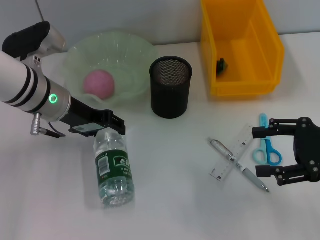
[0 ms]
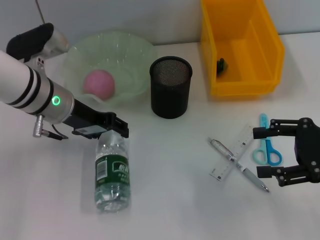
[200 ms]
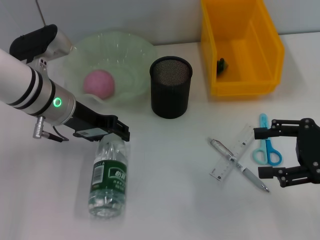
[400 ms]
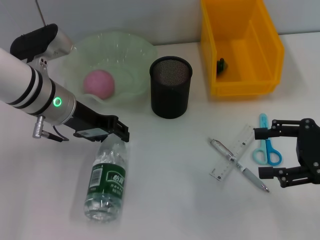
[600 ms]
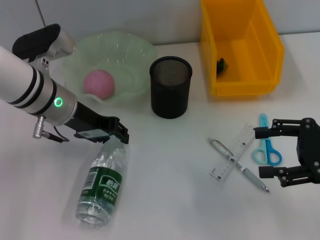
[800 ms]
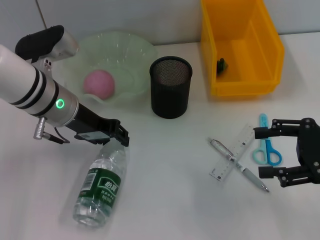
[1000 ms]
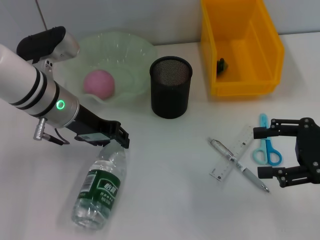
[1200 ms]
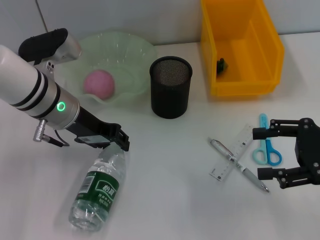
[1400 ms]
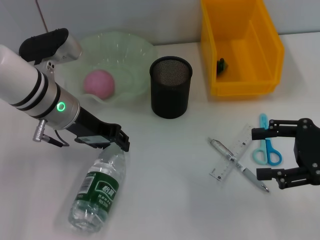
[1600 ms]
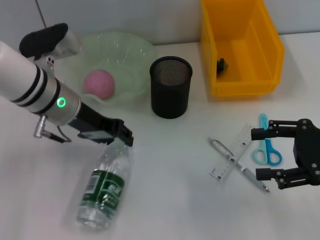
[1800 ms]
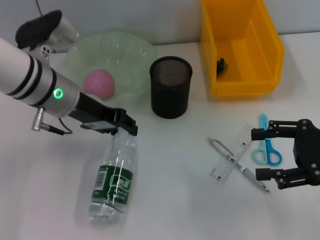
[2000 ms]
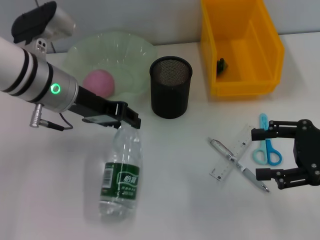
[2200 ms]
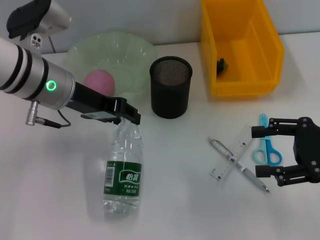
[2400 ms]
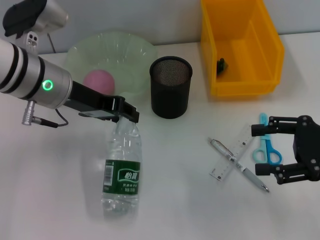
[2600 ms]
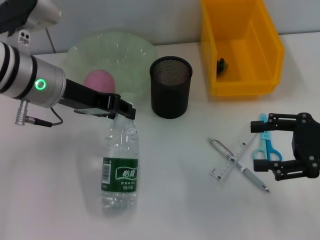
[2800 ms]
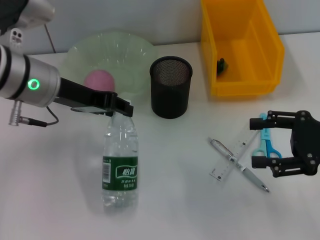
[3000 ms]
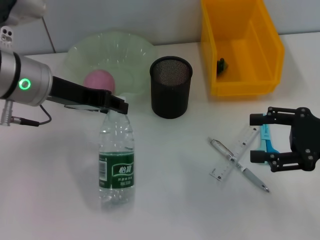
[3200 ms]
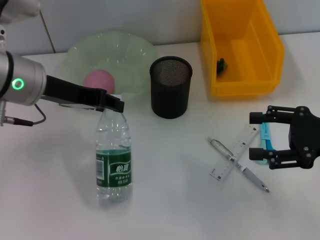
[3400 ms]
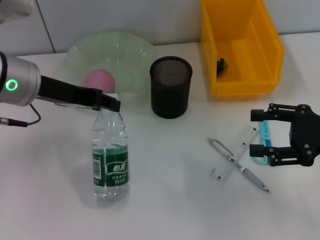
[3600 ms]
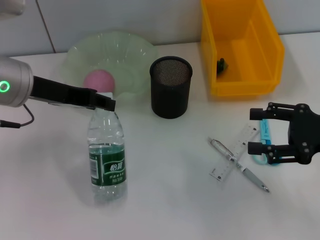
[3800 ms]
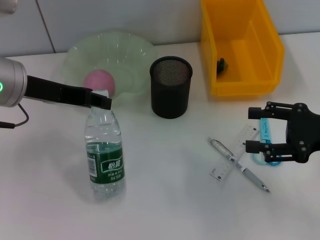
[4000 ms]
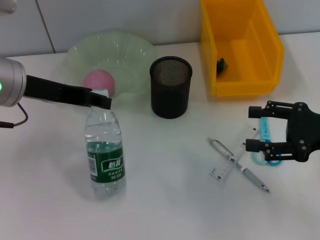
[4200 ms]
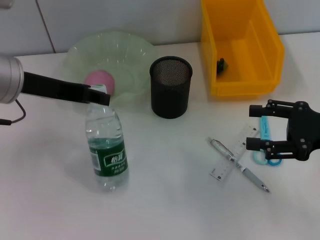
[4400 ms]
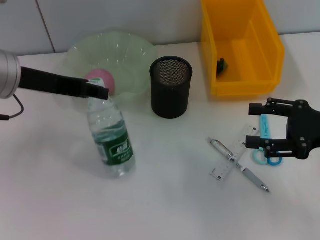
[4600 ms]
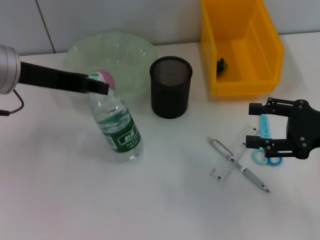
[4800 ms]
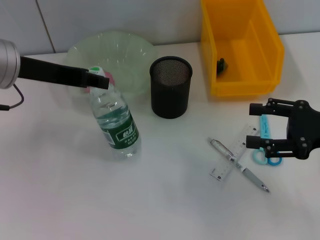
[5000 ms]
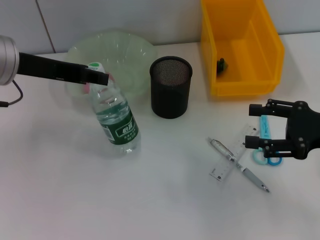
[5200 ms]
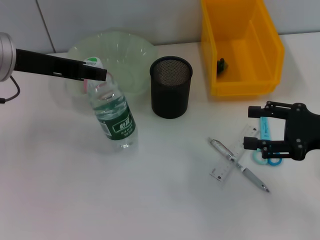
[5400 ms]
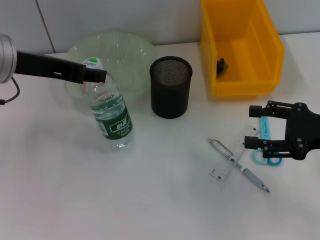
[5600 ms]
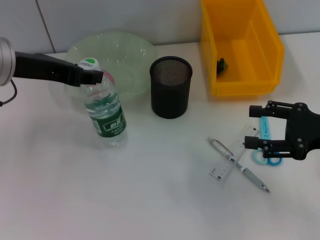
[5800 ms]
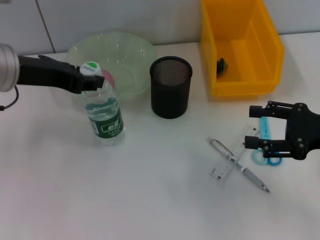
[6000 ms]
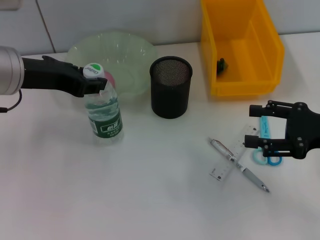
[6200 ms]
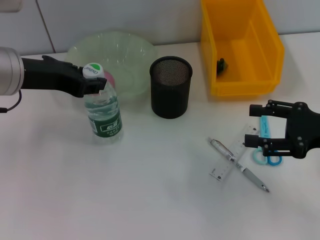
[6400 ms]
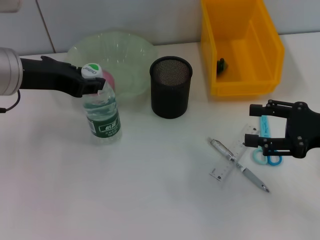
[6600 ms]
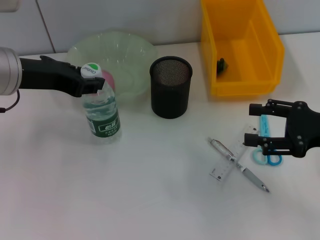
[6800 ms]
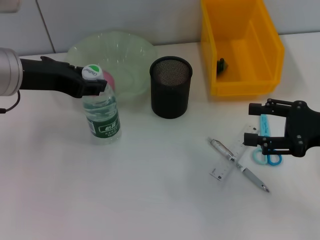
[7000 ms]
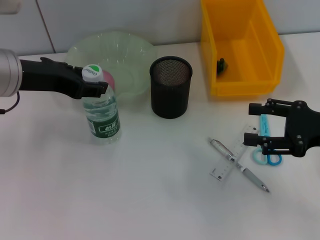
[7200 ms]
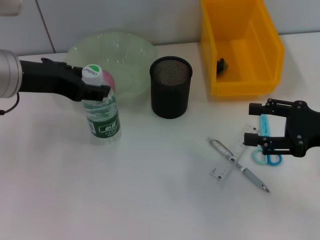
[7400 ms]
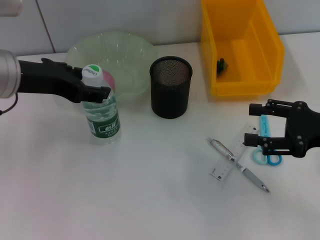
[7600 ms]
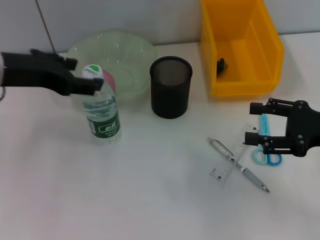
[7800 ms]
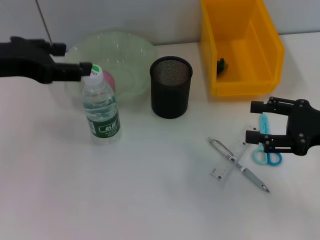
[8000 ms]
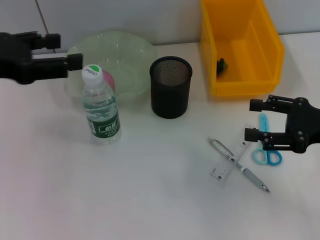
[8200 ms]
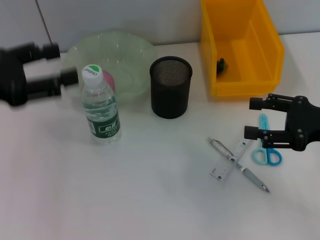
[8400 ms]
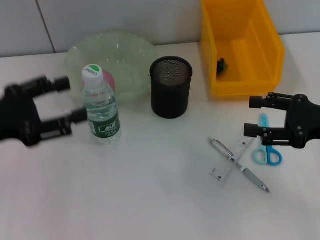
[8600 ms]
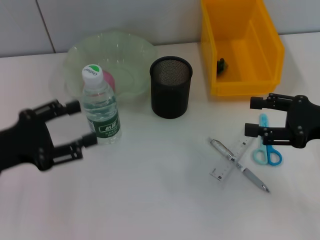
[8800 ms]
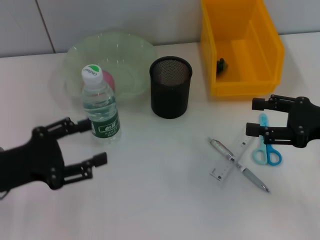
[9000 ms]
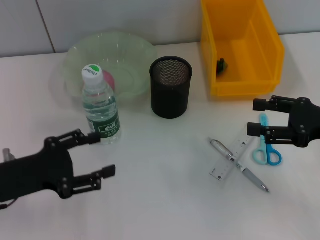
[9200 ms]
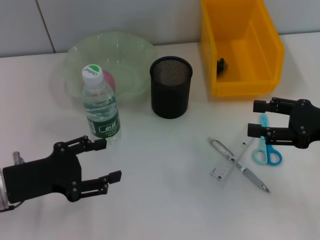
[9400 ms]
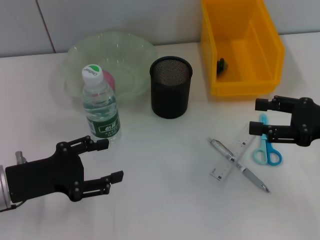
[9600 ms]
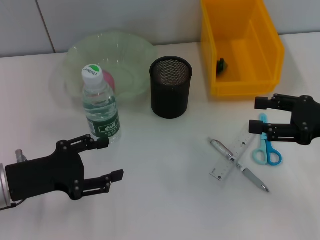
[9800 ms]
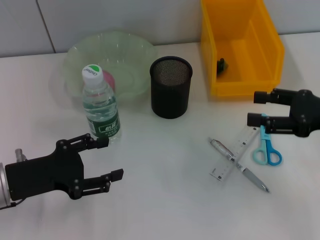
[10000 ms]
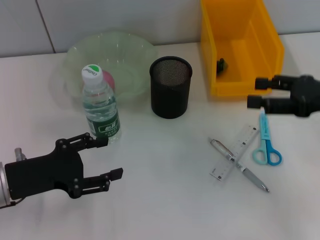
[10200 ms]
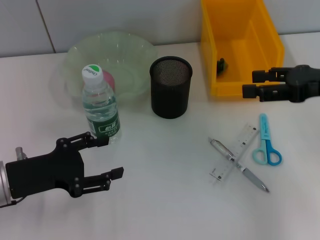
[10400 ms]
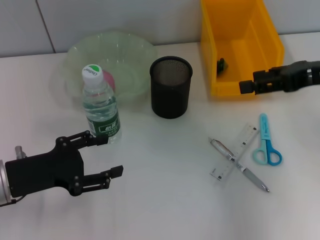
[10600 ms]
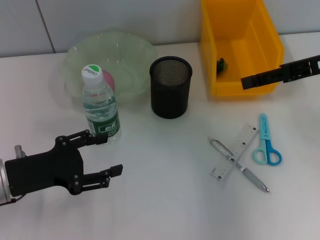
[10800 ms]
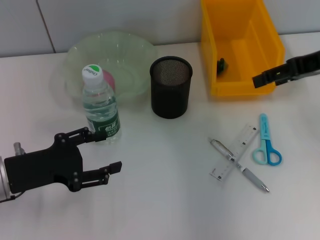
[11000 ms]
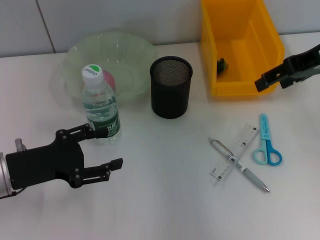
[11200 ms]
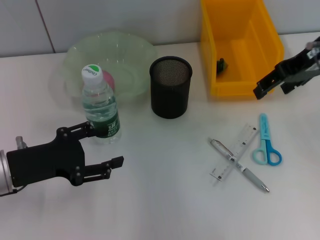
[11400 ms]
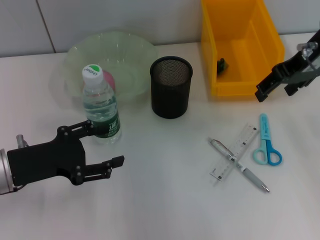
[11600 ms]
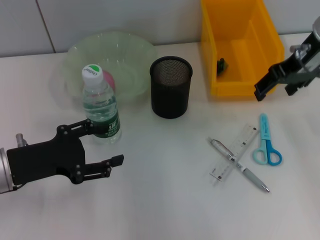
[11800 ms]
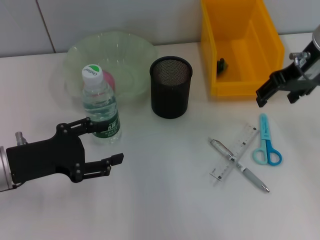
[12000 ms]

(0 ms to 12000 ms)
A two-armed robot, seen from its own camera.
Step, 1800 ms - 7400 ms: Place the water bottle on the table with the left hand.
0 ms - 1600 ms: The left gripper closes its fingers.
1600 ms - 3000 ms: The left gripper is displaced upward by some 5 cm.
3000 ms - 4400 ms: The grippers stay close to where they were, moving slightly.
4400 ms - 6000 ms: The grippers move only a little.
6000 ms - 7600 ms: The left gripper opens up.
7600 ms - 9000 ms: The left gripper shifts roughly 15 cm downward, backward and to the left.
9000 ms - 10400 ms: The right gripper travels upward by about 5 cm.
10400 ms - 12000 ms: The right gripper moves forward and to the left, about 10 cm.

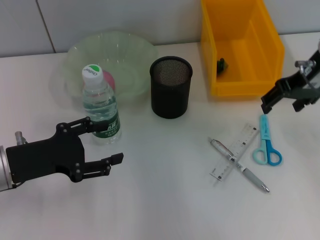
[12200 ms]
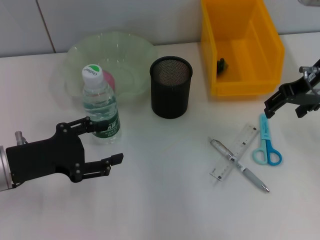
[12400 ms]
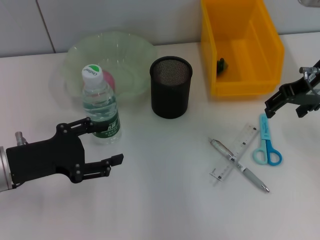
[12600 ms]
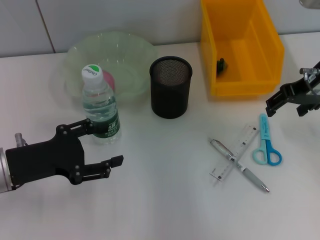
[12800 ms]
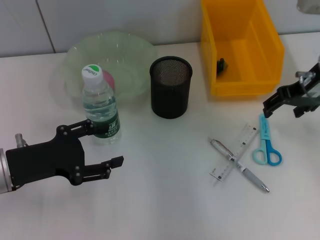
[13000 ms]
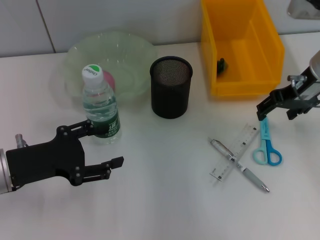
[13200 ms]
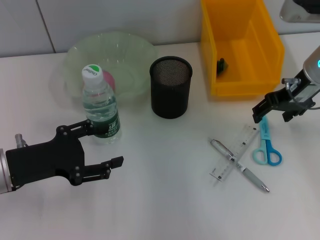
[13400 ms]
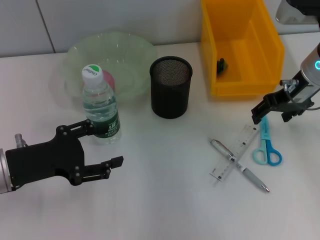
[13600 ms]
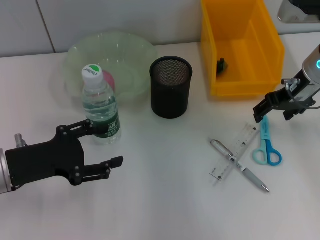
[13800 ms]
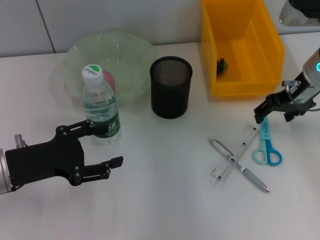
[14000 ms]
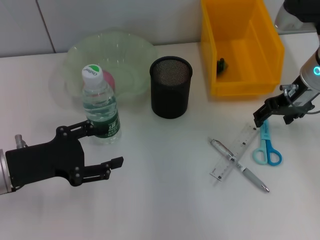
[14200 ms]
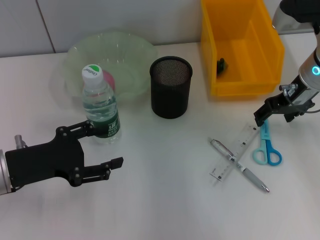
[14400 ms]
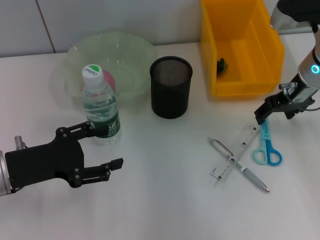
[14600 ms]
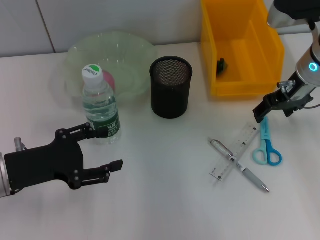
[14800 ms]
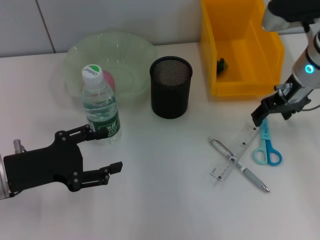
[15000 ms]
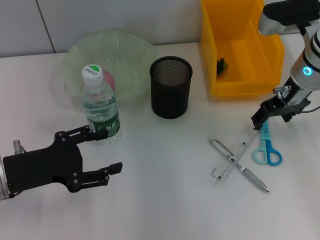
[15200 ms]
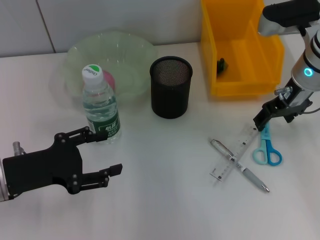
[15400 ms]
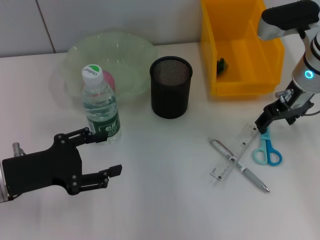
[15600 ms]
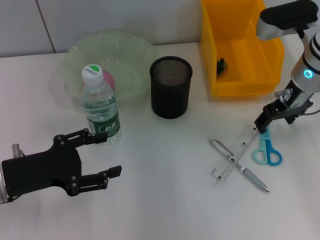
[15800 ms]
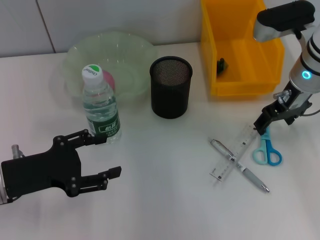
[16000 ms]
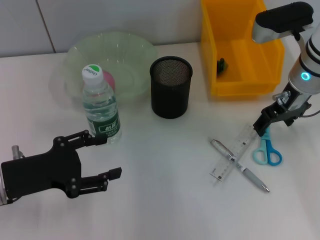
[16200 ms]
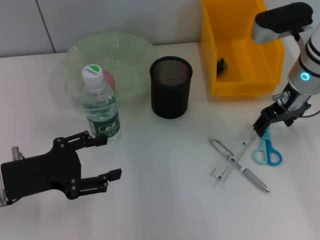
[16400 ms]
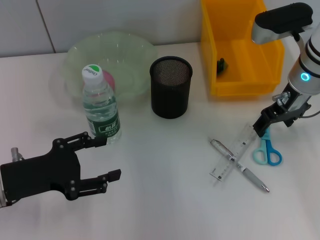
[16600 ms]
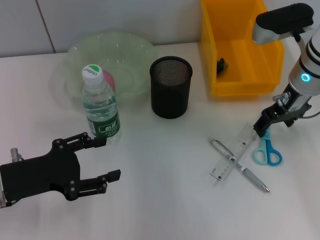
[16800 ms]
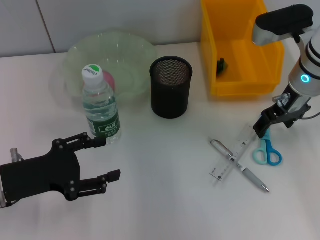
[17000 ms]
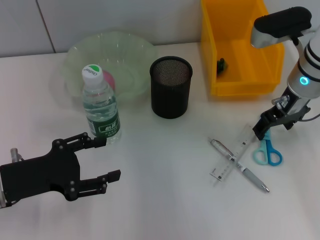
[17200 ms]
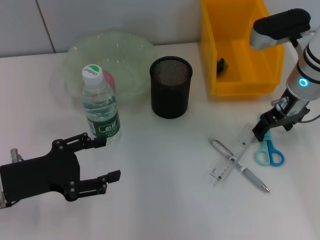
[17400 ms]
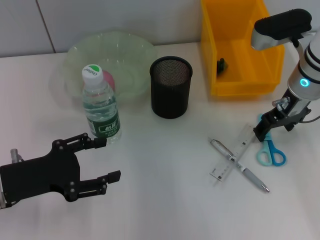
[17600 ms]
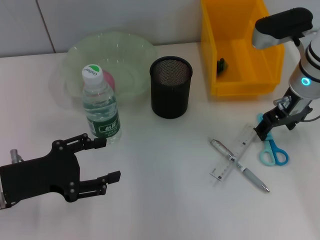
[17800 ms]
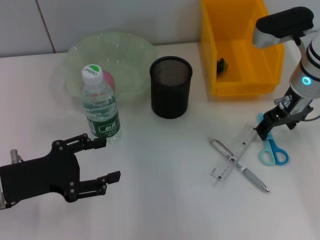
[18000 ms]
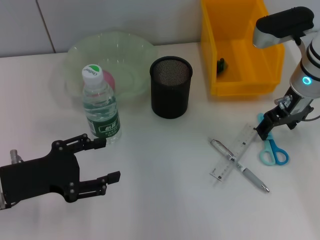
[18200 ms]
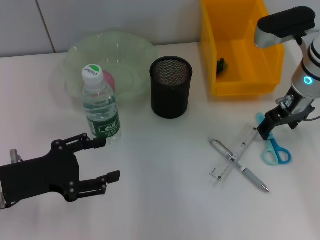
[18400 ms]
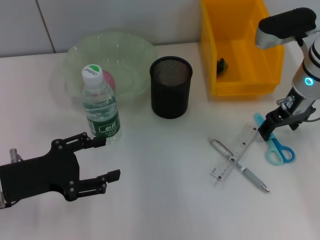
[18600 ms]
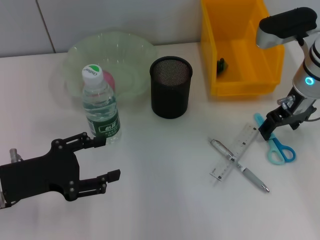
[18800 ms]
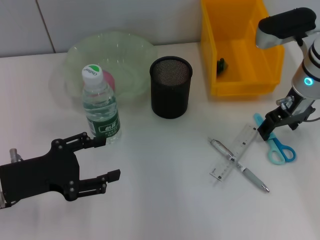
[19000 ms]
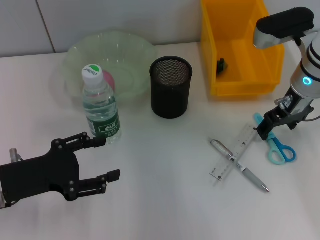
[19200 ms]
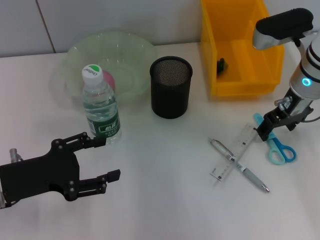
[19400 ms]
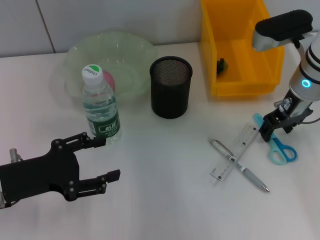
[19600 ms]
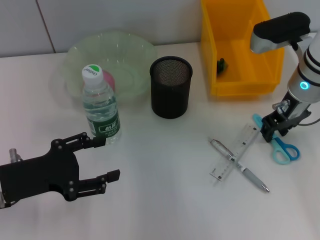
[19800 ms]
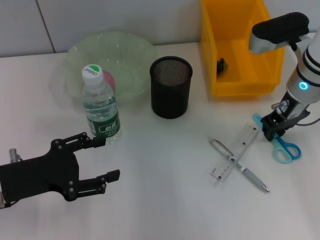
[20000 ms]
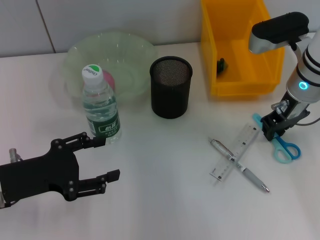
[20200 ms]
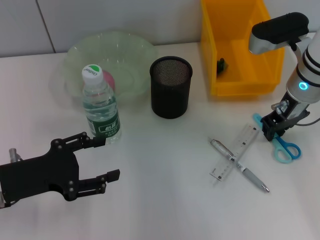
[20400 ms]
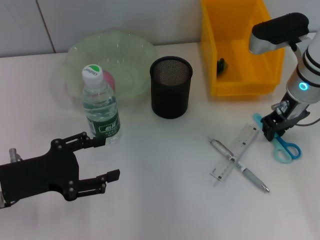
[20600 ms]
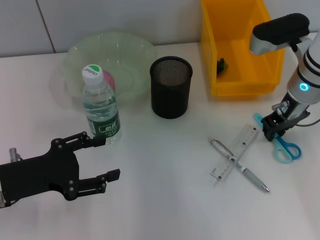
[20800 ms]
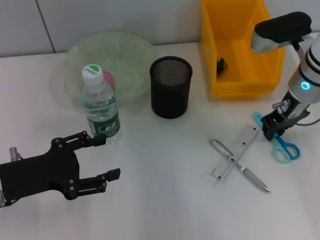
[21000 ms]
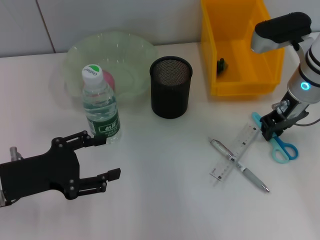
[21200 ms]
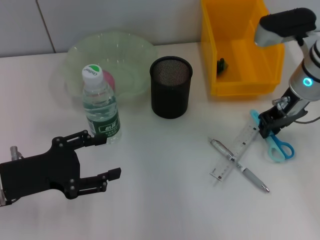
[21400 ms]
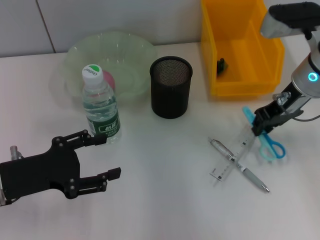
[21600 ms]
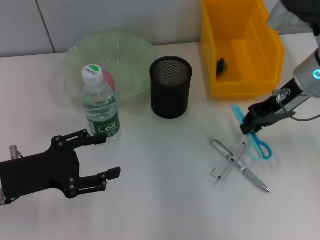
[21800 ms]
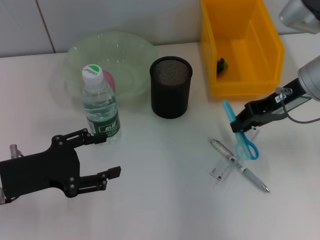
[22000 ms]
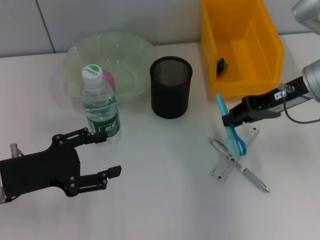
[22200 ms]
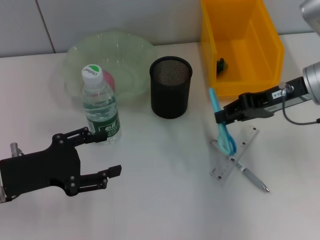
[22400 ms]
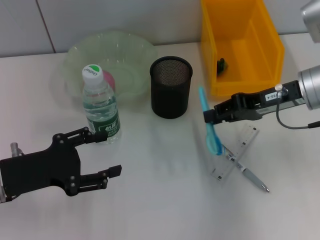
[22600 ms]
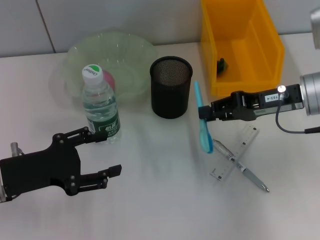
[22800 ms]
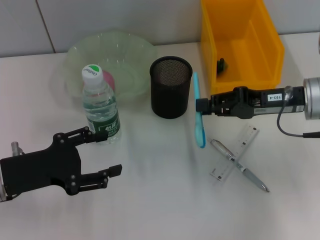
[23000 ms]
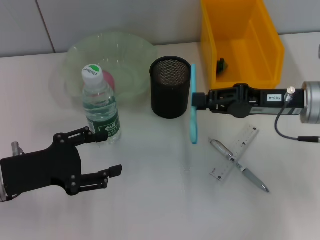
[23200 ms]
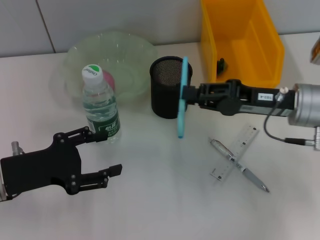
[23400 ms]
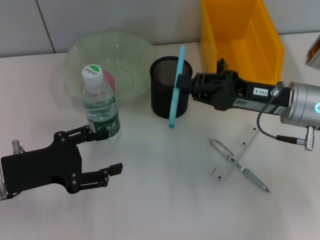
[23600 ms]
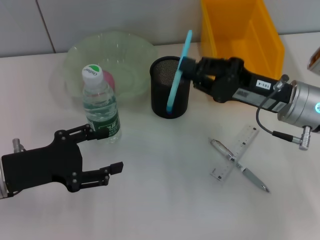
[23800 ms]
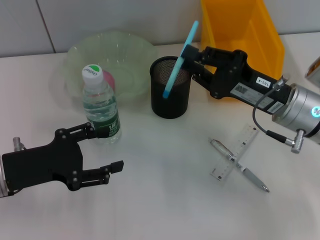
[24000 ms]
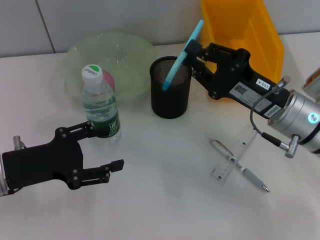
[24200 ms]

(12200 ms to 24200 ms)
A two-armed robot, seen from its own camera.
Step, 12200 ms - 21000 ms: Grab the blue scissors with the right hand.
12200 ms - 13800 ms: The right gripper changes place by roughly 5 cm.
13800 ms - 15200 ms: There are only small adjustments of the grippers.
15200 ms - 16600 ms: Neither gripper changes place.
16600 ms - 19800 ms: Neither gripper changes place.
19800 ms - 21200 ms: The right gripper closes its fingers.
21200 ms - 22600 ms: The right gripper moves about 5 cm.
22600 ms - 24200 ms: The right gripper heads downward and backward, covering about 10 cm.
